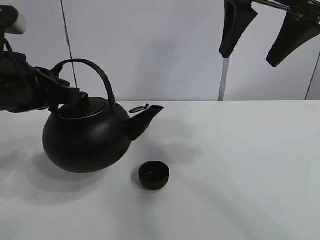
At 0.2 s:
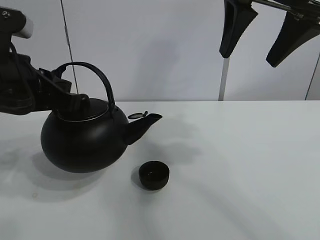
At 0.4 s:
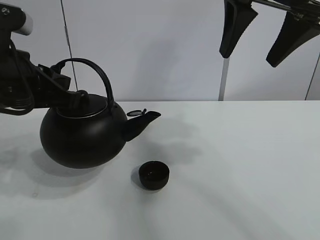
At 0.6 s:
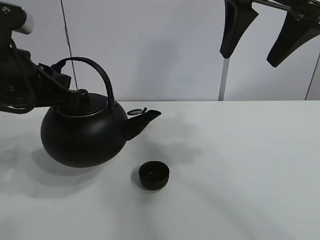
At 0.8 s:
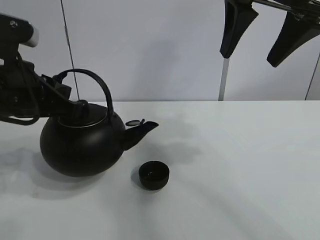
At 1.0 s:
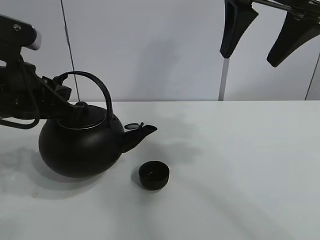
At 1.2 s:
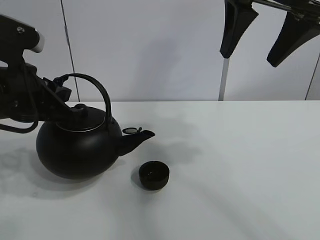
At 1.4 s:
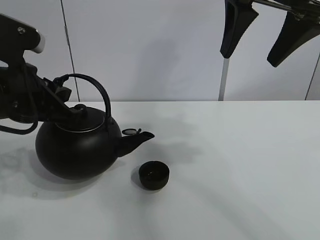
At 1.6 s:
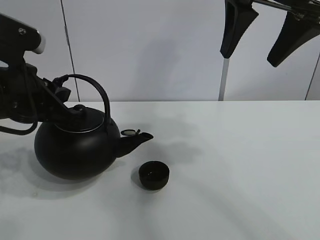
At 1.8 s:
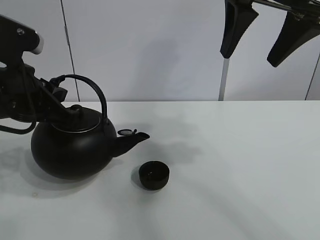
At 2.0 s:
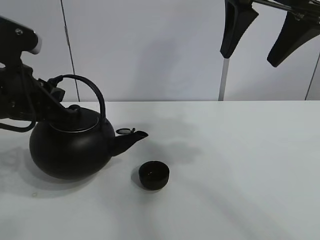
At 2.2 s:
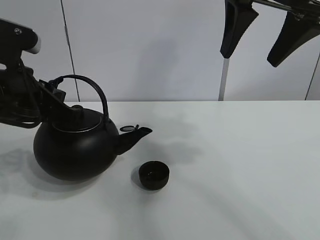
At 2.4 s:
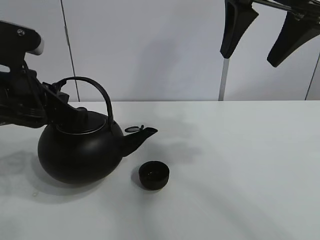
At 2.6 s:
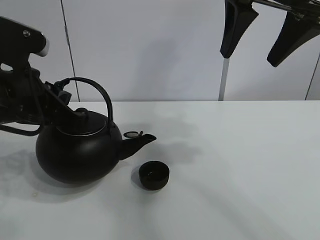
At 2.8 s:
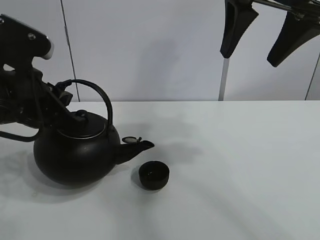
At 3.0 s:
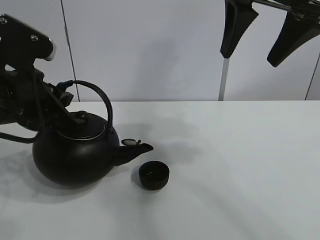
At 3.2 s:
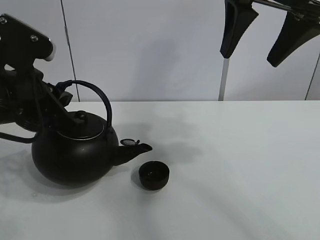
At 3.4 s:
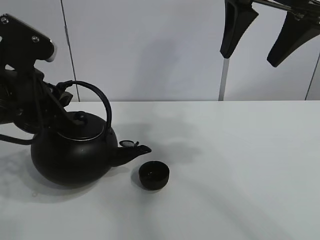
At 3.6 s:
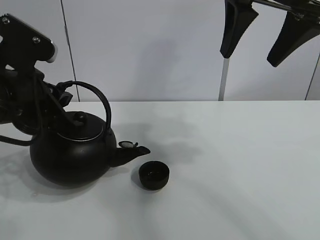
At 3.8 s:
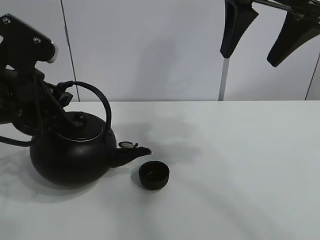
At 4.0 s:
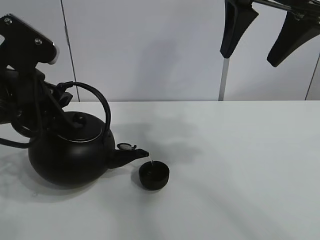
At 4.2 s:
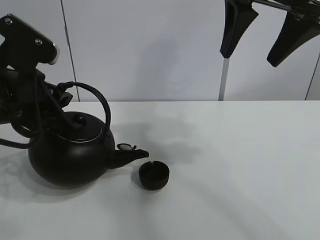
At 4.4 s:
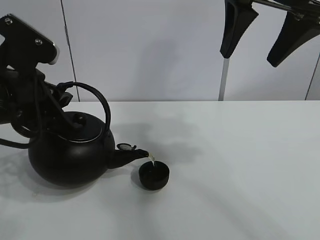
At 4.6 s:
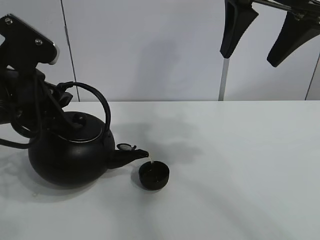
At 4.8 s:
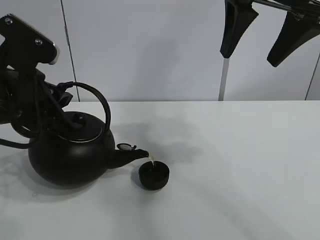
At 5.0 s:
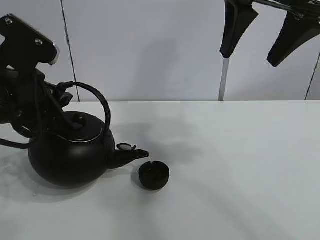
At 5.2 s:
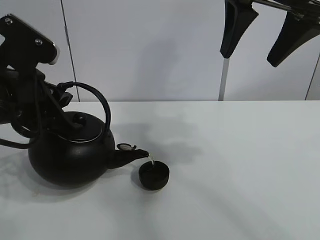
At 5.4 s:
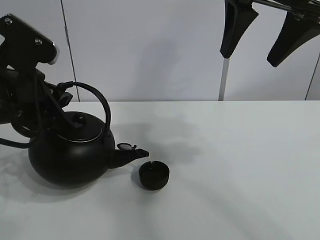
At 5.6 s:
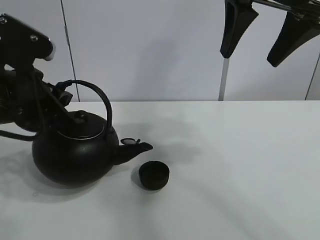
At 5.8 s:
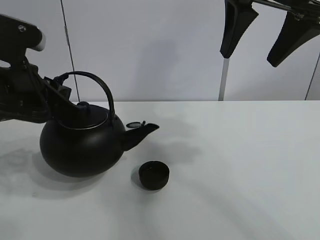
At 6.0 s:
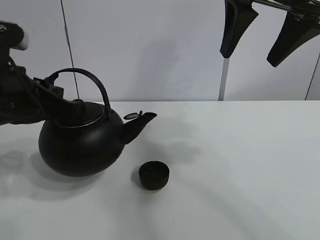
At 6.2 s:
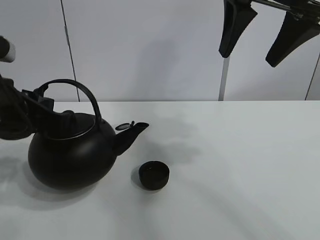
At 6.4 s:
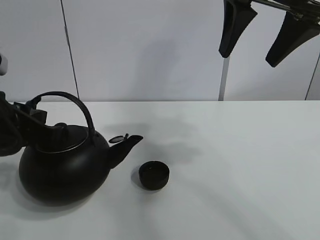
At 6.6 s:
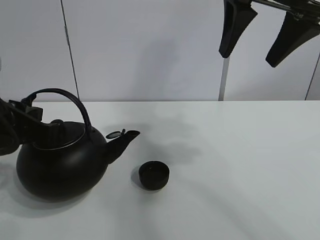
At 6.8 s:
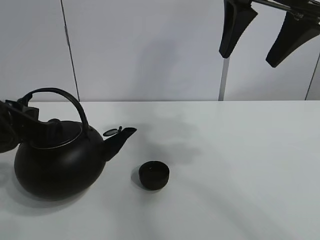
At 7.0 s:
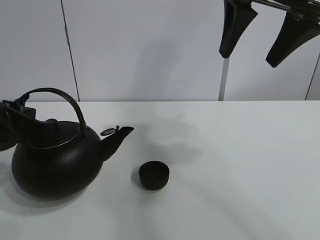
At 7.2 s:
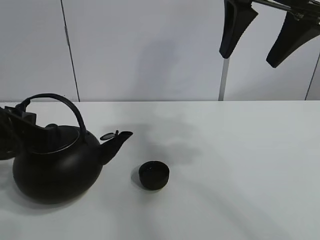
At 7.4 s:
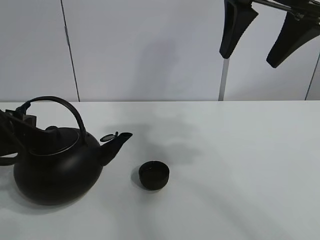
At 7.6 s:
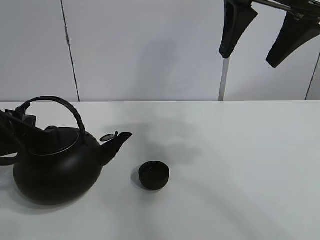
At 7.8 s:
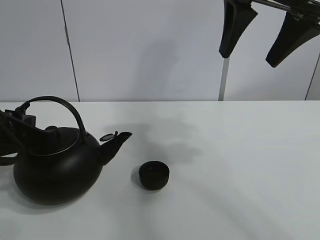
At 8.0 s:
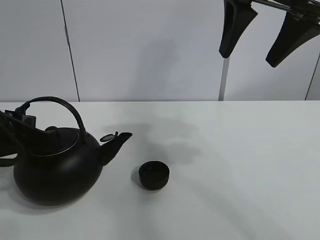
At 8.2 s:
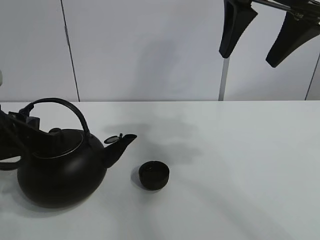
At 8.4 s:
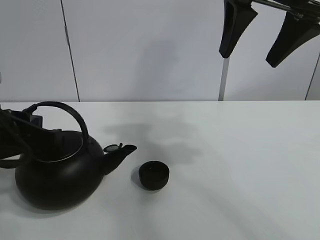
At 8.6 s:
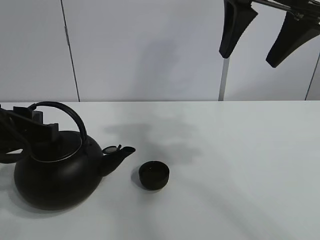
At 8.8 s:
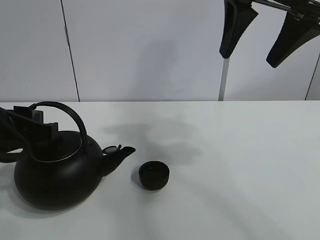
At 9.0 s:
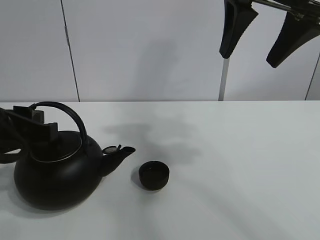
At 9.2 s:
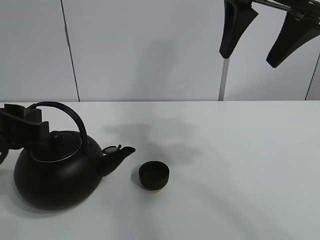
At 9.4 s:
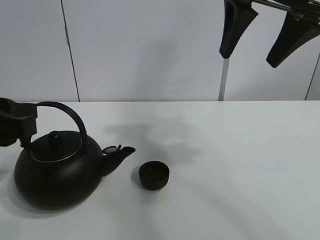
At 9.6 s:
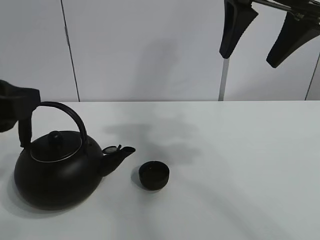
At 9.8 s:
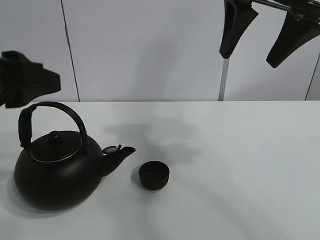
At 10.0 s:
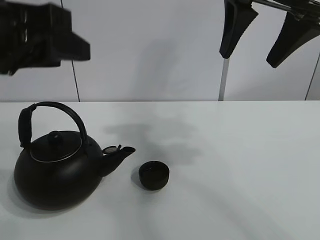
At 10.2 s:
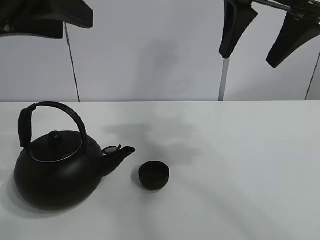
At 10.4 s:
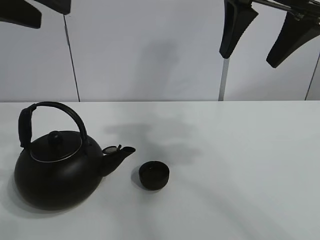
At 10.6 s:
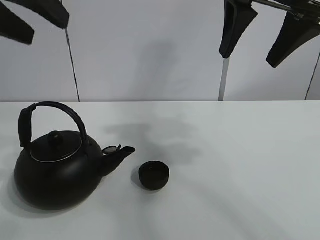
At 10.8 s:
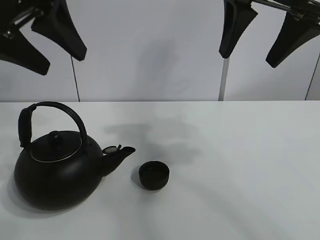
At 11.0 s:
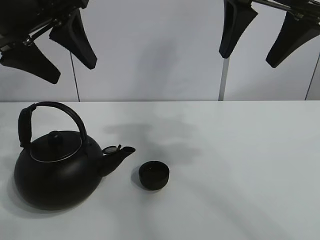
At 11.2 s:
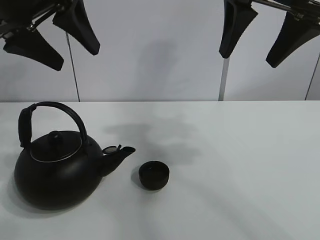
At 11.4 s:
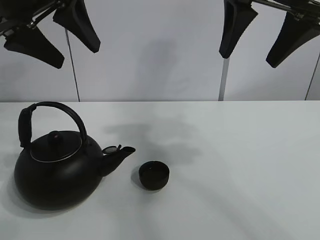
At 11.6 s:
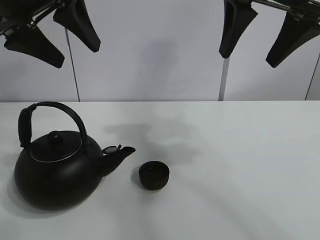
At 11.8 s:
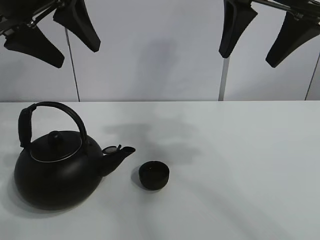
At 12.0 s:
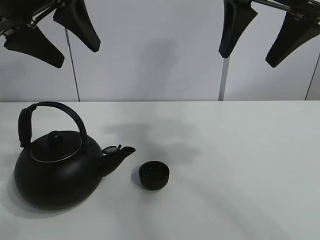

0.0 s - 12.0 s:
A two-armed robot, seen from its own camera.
Task of the whole recording: pour tea into the teacup.
Step, 0.0 s - 5.6 s: Pour tea into the teacup with the left gripper.
0.0 s - 1.6 s: The grippers stay close to where they were, moving slightly.
1.6 s - 4.4 s: The grippers stay close to where they were, moving slightly.
6.0 s - 7.6 s: The left gripper ends up roughly 5 cm from where it was.
7.6 s - 9.0 s: The left gripper opens its fingers.
9.0 s - 10.4 s: The left gripper goes approximately 20 cm upward.
10.4 s - 12.0 s: The left gripper shifts about 5 cm forward.
